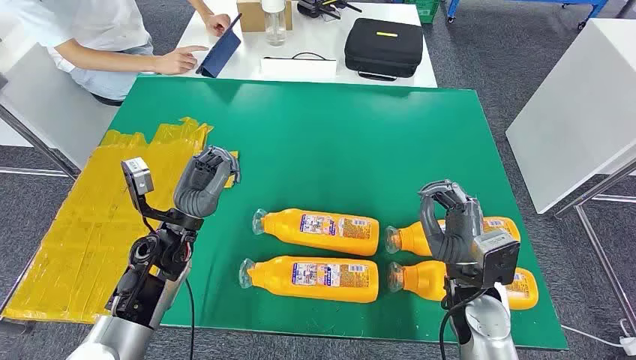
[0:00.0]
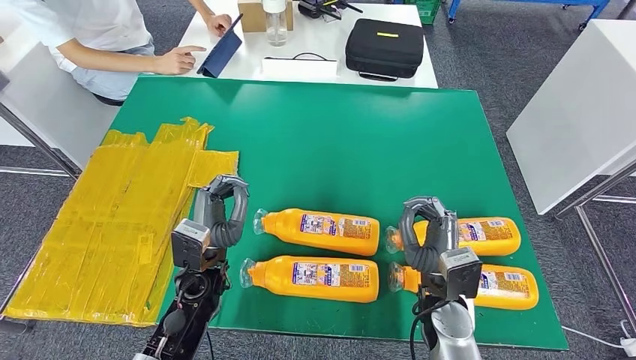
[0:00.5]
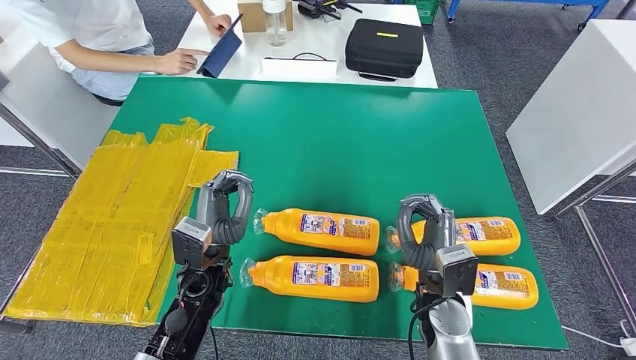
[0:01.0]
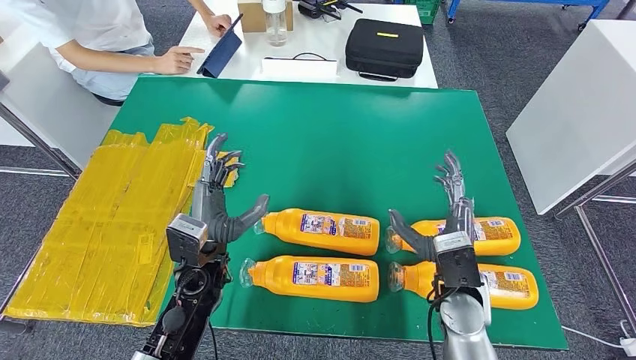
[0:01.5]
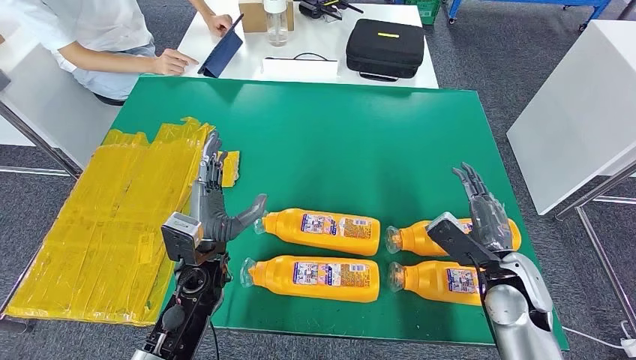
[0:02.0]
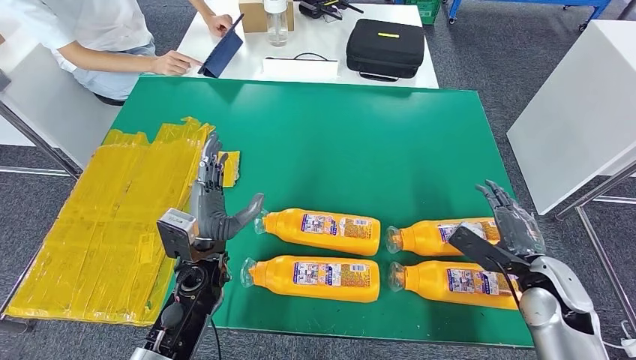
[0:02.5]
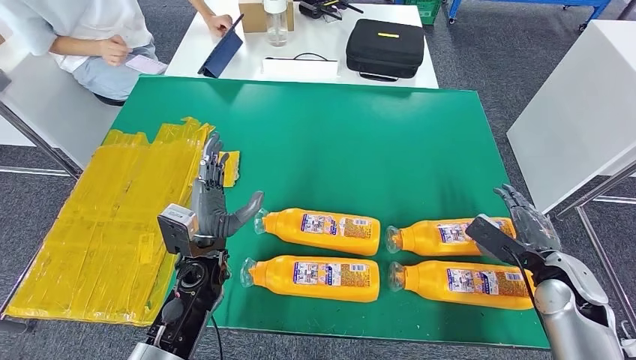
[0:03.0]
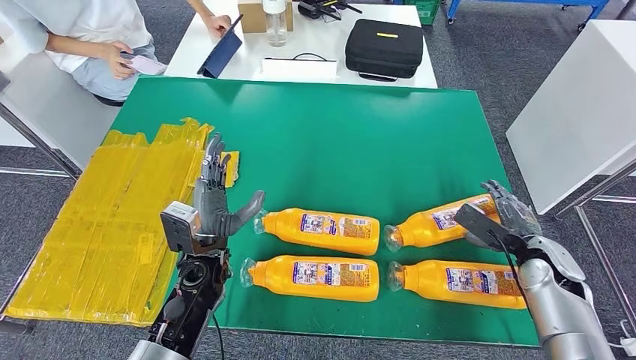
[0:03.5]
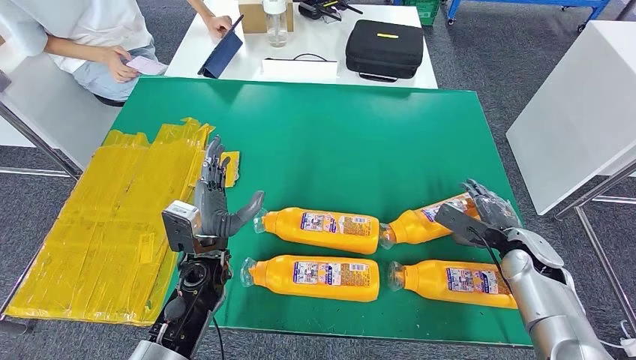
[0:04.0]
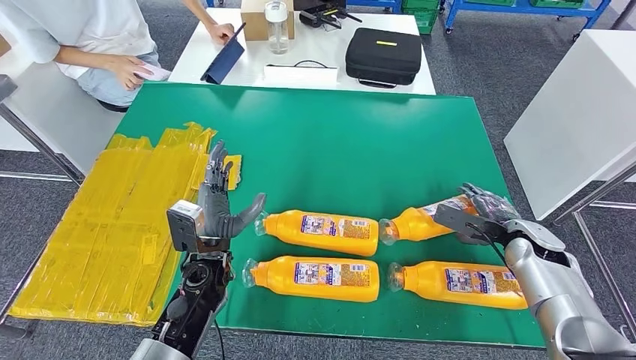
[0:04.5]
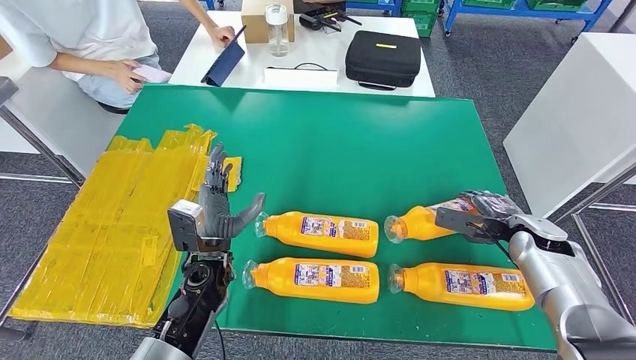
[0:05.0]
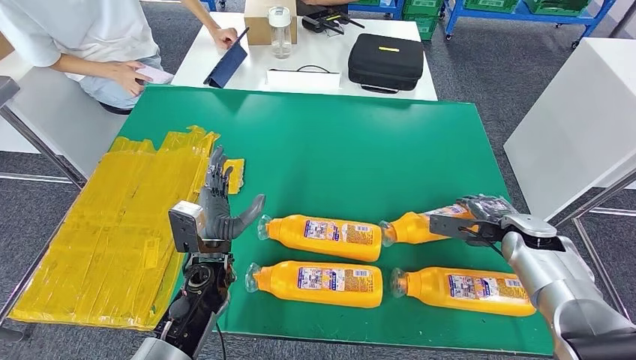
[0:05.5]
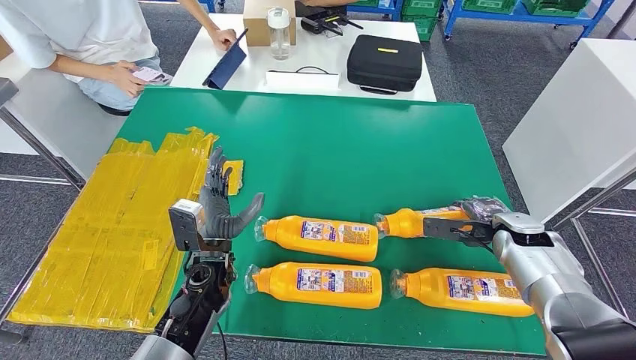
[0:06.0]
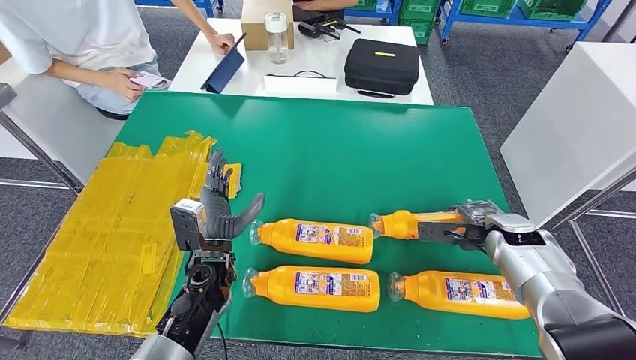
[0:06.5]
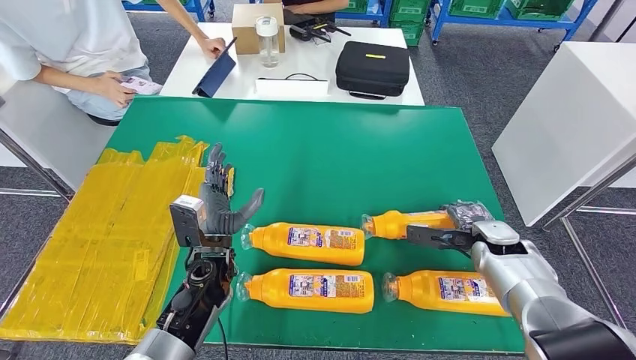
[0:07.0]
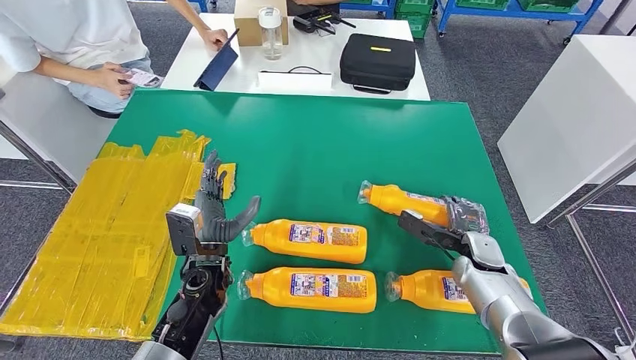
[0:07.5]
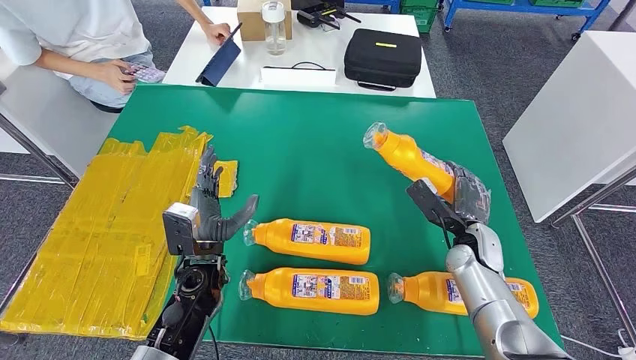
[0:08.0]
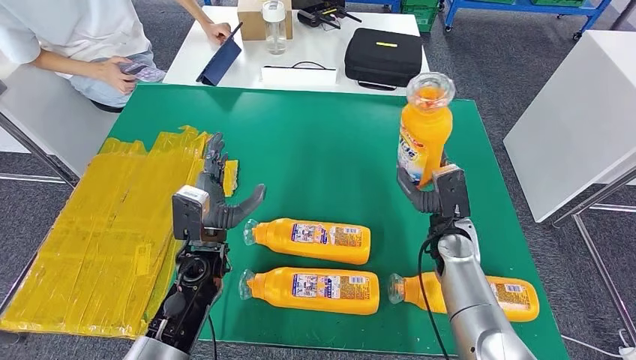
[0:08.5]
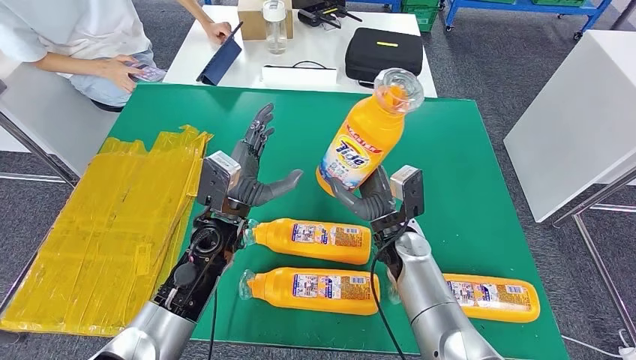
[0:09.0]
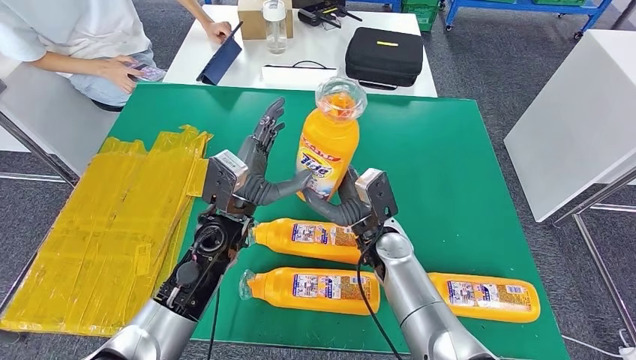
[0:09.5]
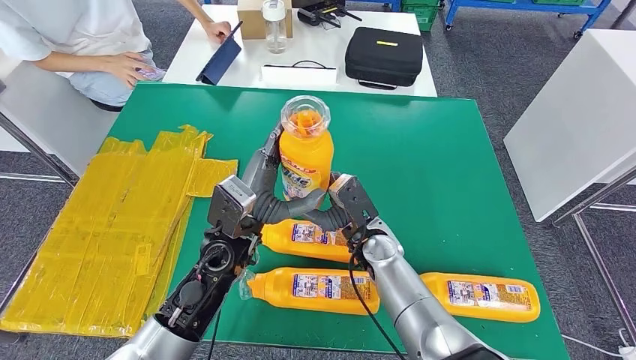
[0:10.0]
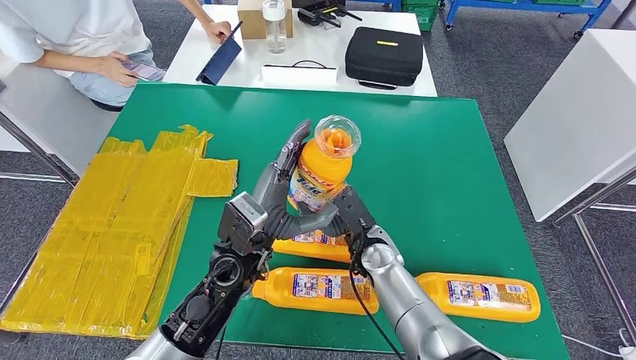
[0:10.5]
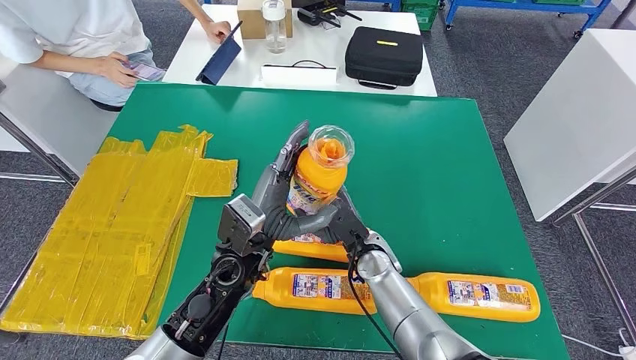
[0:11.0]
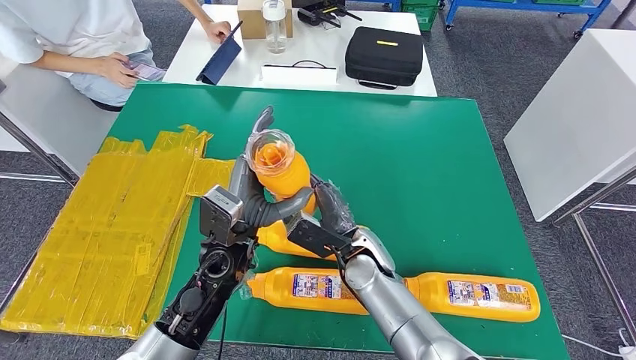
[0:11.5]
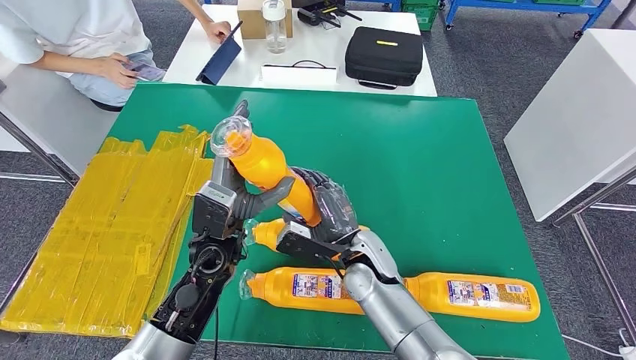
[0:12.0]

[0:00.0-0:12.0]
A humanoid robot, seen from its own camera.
Step, 0:00.0 to 0:09.5: Take the fast-moving consumer goods bottle from the table.
0:02.0 to 0:04.0: The right hand shifts some 10 cm forward and to the right.

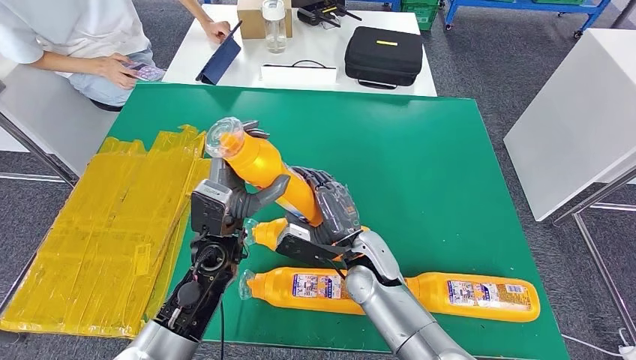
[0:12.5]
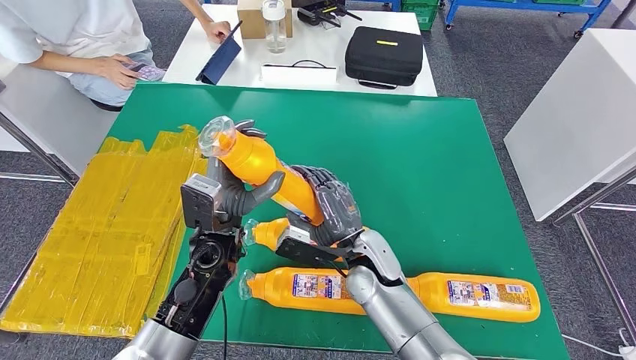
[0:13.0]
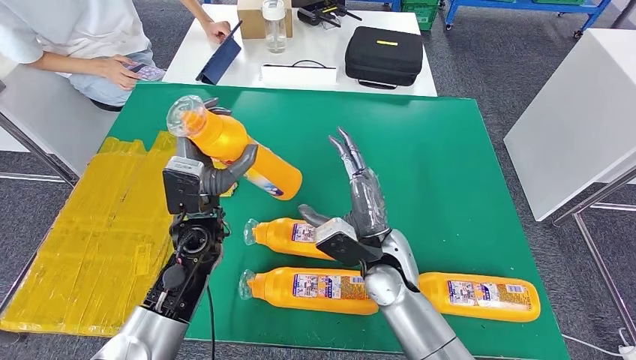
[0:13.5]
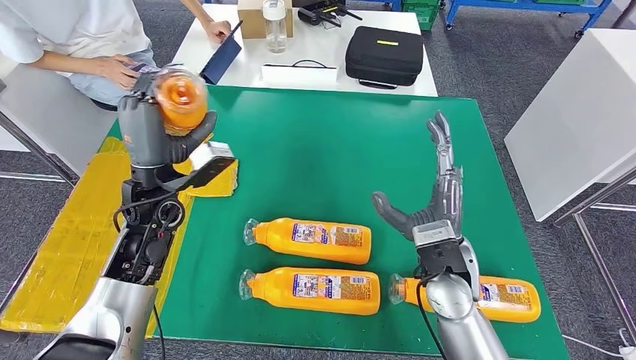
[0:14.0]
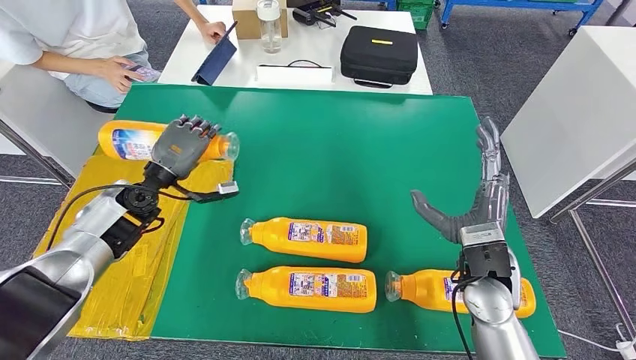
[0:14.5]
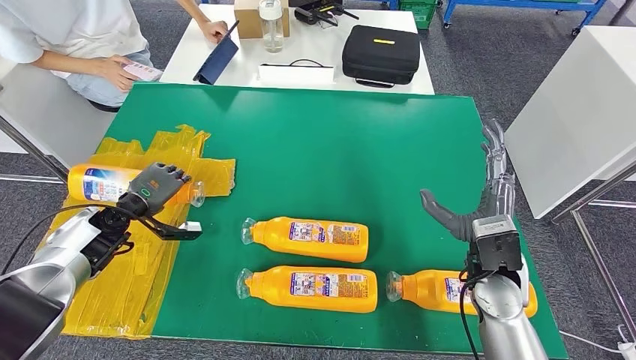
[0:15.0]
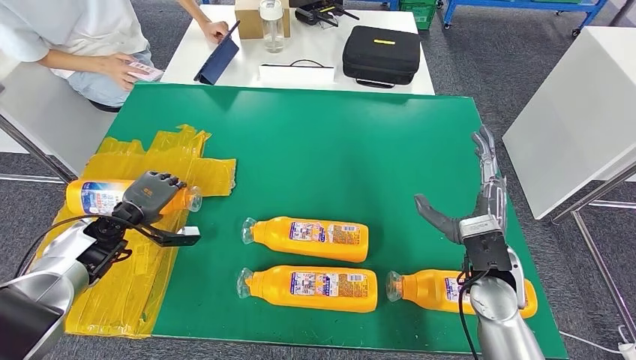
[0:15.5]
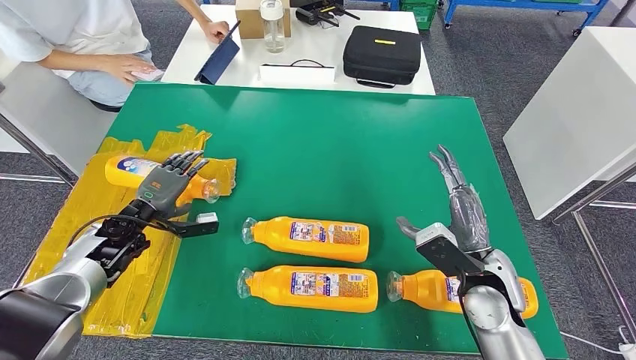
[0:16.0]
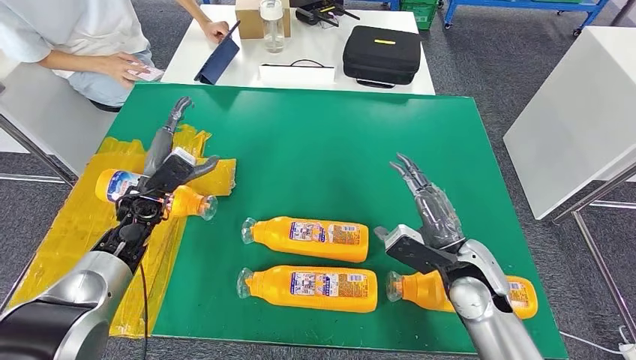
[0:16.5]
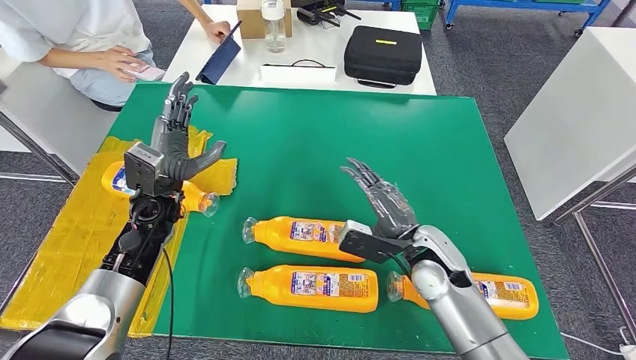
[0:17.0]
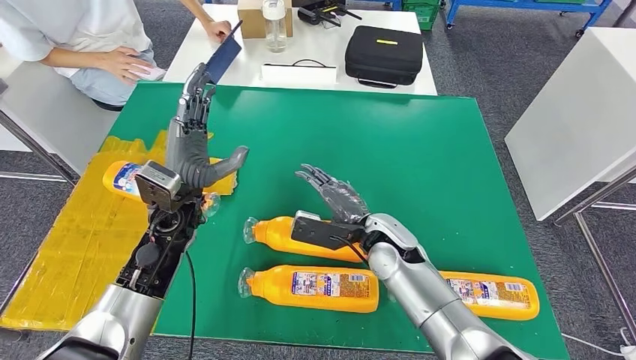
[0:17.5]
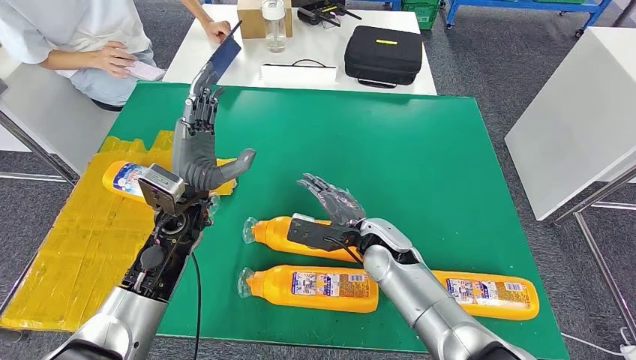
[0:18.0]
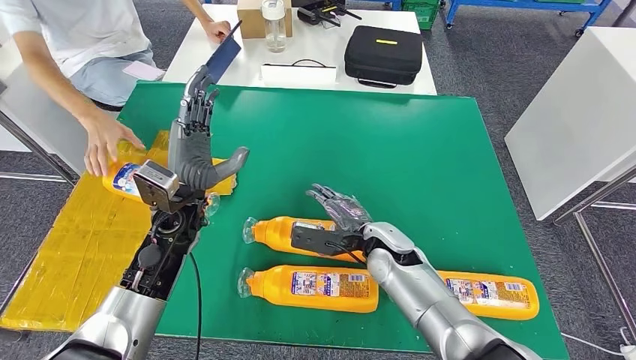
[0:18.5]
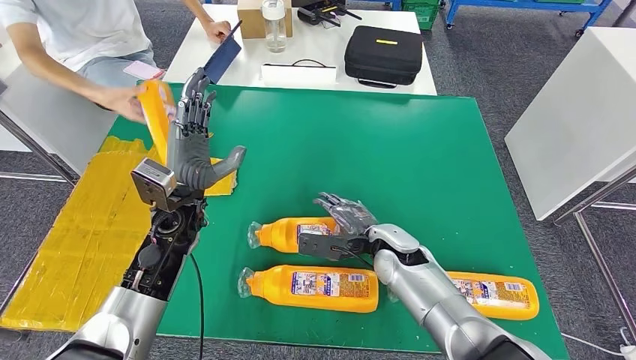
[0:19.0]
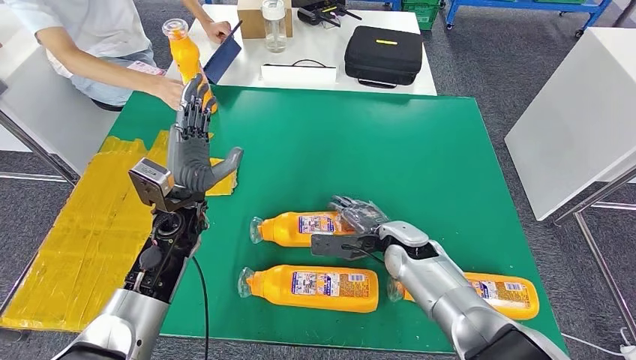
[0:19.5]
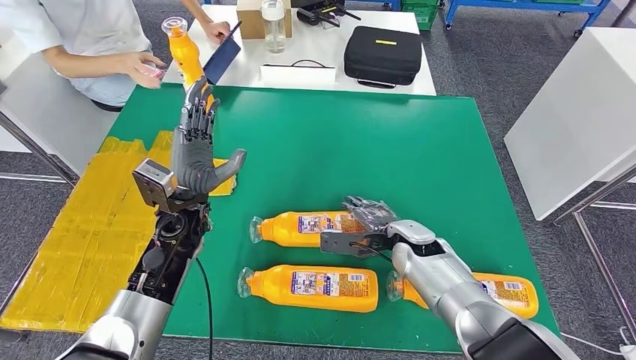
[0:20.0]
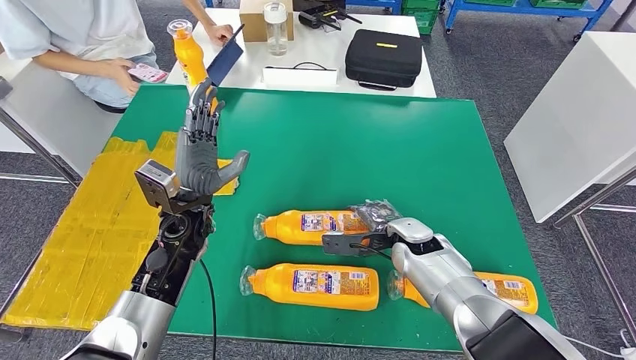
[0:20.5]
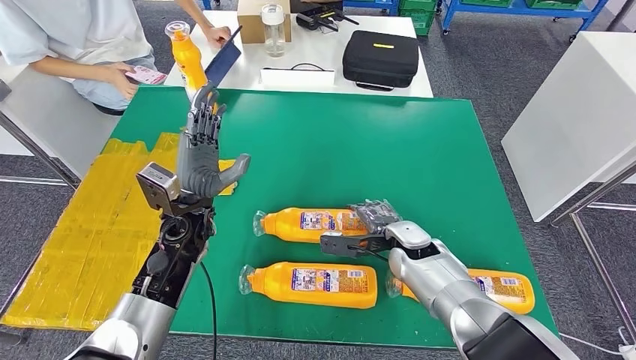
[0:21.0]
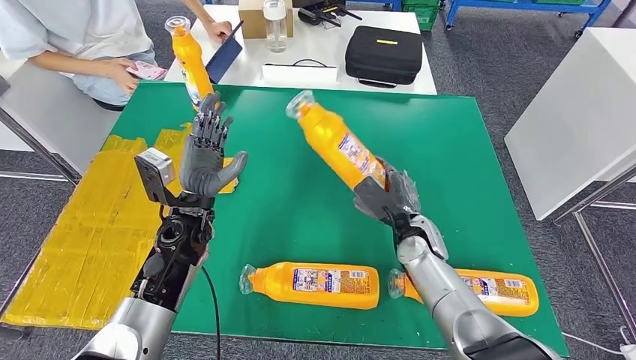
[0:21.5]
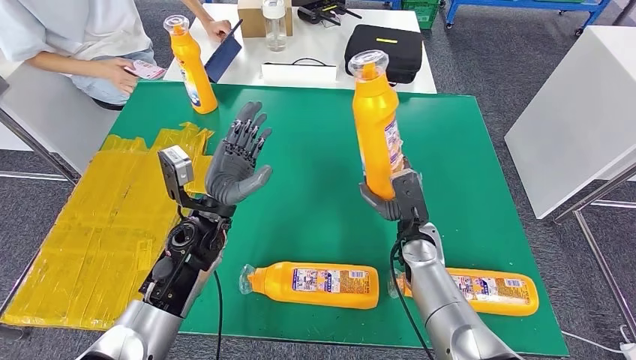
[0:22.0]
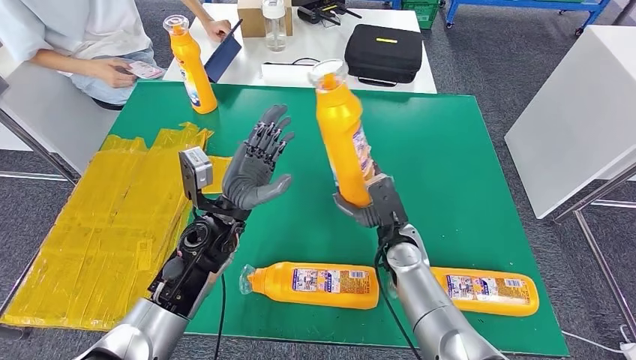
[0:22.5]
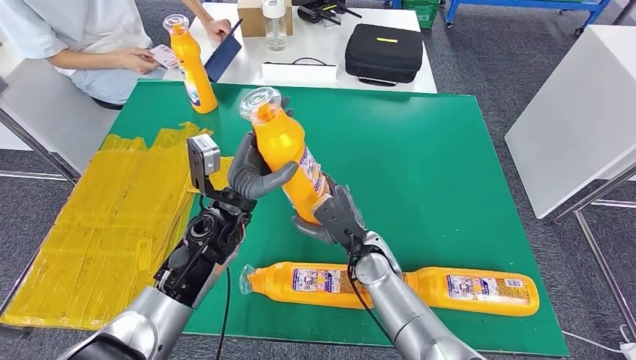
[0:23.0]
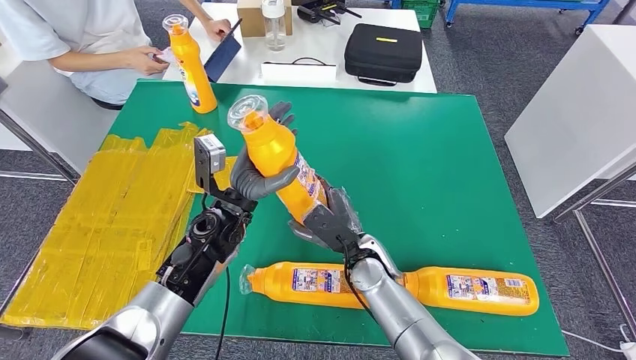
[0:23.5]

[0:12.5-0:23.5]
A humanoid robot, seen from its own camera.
Step, 0:12.5 to 0:16.0: Flip the fast-moving consumer goods bottle to the front side.
0:18.0 to 0:20.0: The right hand travels to the right by roughly 5 cm.
